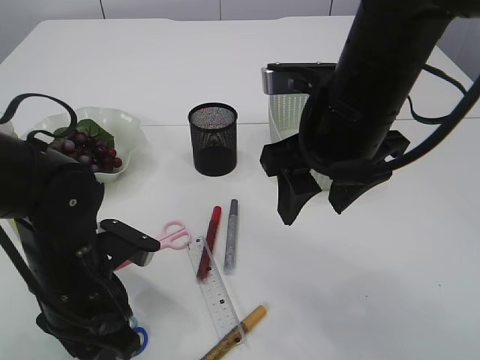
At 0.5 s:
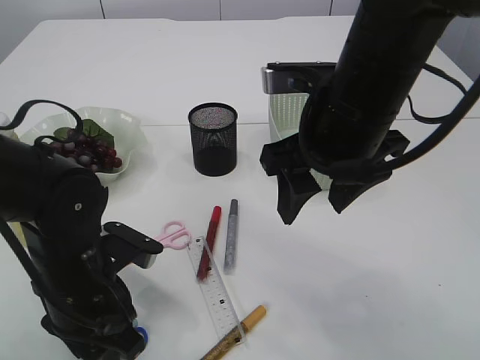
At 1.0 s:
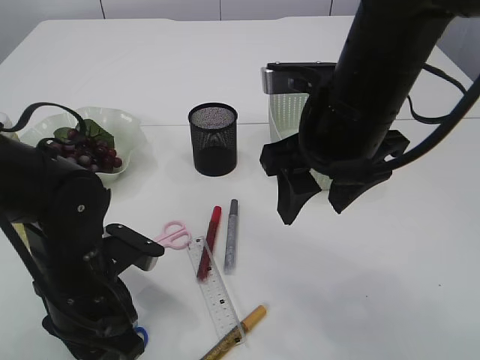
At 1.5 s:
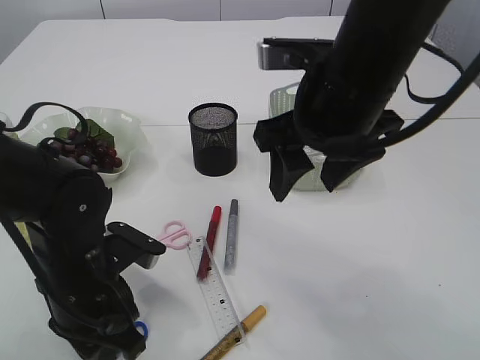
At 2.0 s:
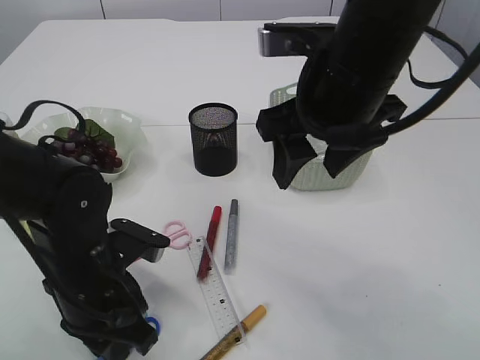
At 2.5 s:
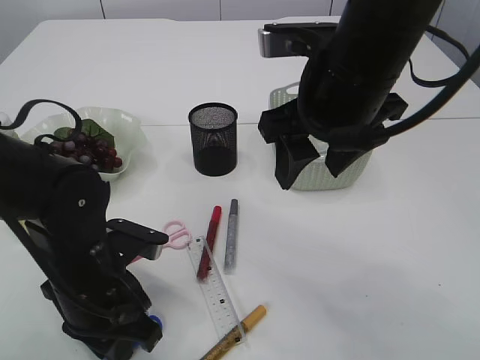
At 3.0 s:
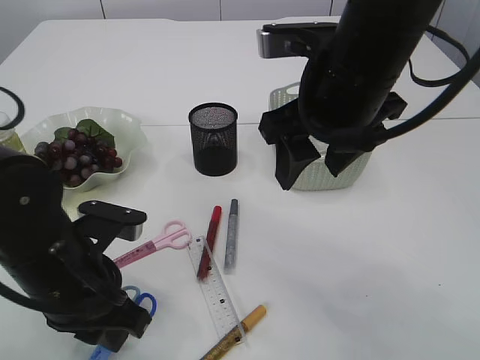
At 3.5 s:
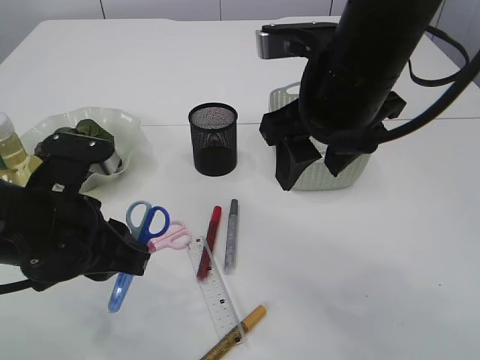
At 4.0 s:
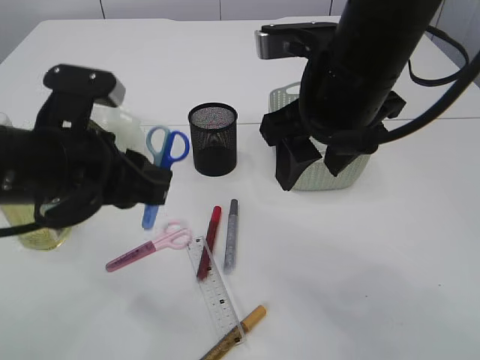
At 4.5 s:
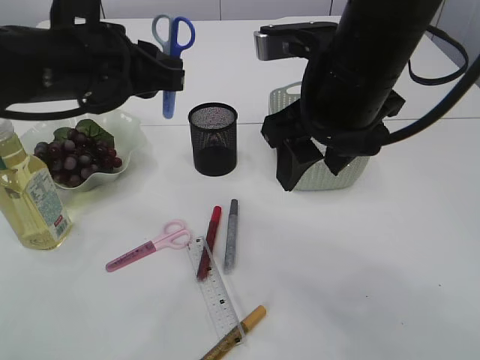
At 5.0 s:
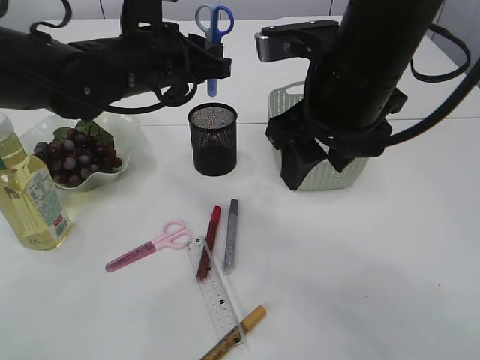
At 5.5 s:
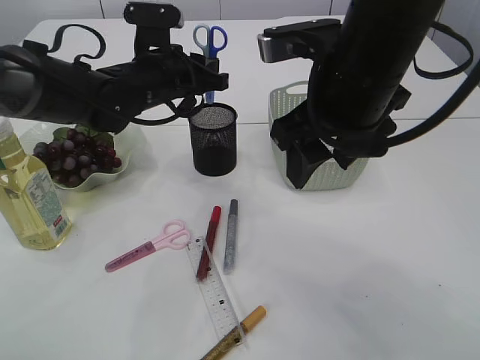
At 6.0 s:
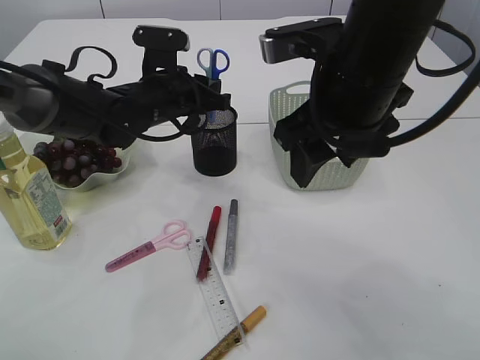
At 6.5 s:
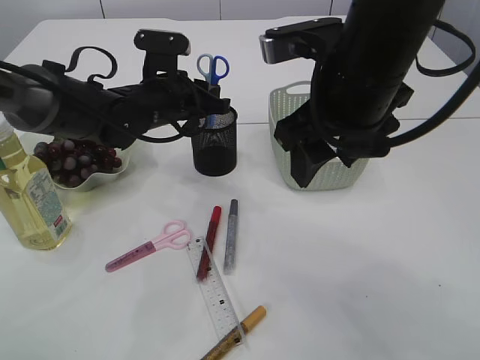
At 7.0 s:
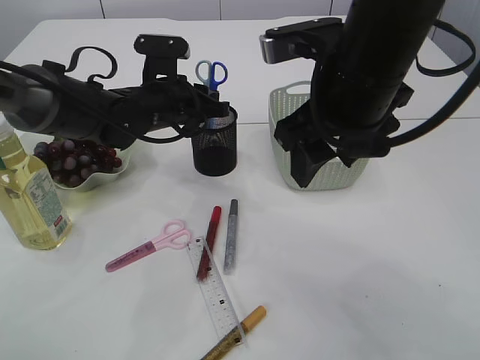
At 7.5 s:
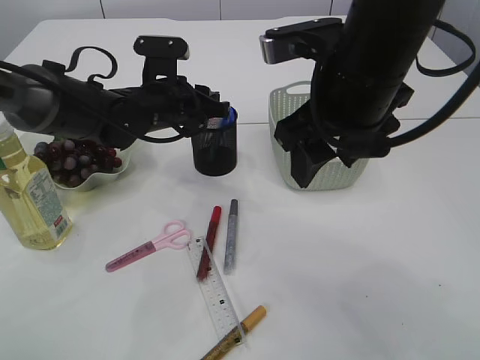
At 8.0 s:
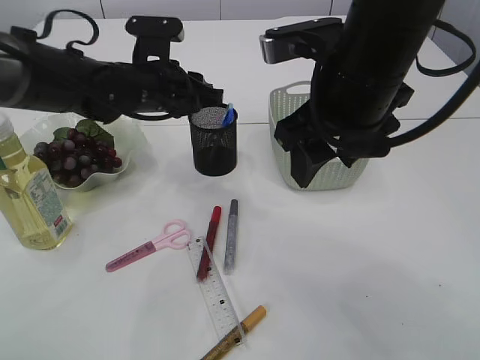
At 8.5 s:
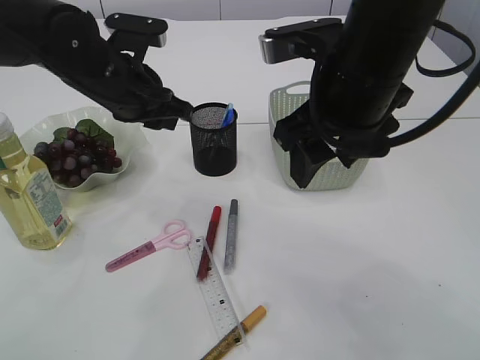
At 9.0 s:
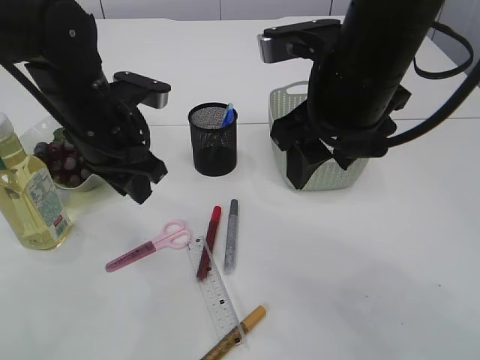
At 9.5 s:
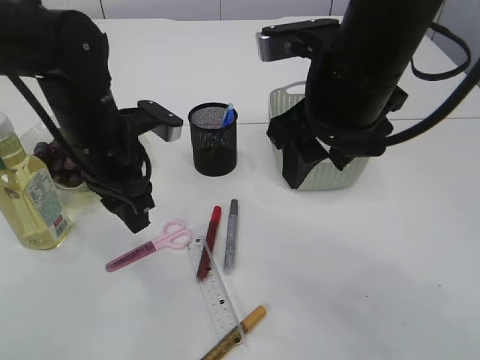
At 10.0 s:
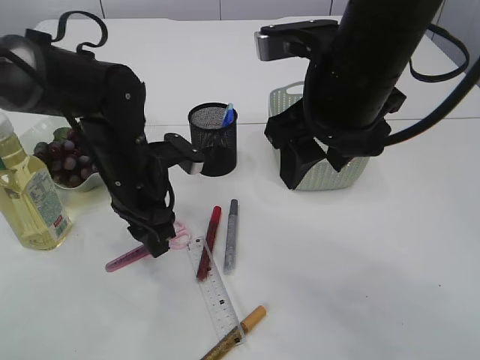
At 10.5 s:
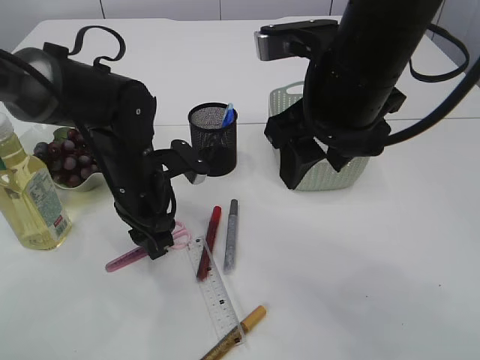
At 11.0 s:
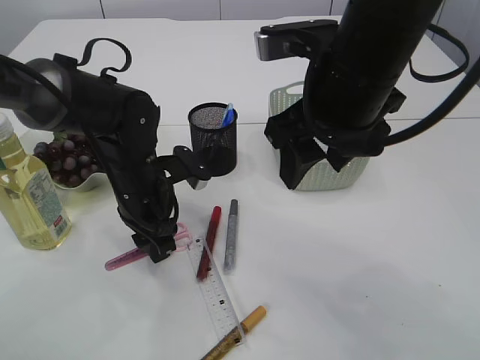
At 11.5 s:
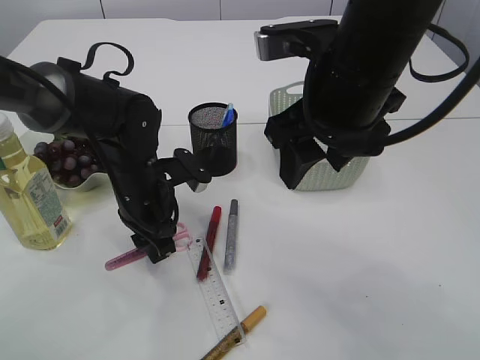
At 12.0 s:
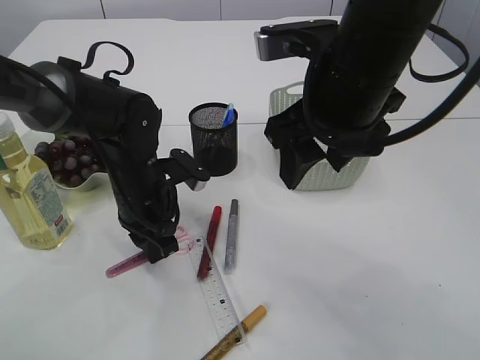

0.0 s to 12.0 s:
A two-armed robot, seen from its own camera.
Step, 0.0 to 3.5 s: pick up the blue scissors.
Step, 4.0 to 8.0 s: Place the blue scissors into the pen holder.
0.0 to 2.0 s: The left gripper closes its fingers.
2.0 to 4.0 s: The left gripper heads upward, covering roughly 10 cm.
4.0 to 6.0 s: The left gripper shifts some 20 cm forward.
6.0 to 8.0 s: The grippers stay close to where they were, moving slightly.
8.0 to 10.0 s: The left gripper moves backward and downward, approximately 10 cm.
10.0 to 12.0 s: The left gripper closes up.

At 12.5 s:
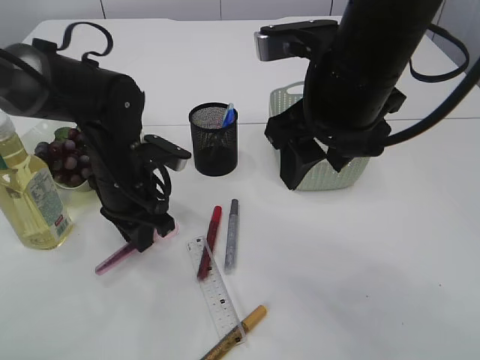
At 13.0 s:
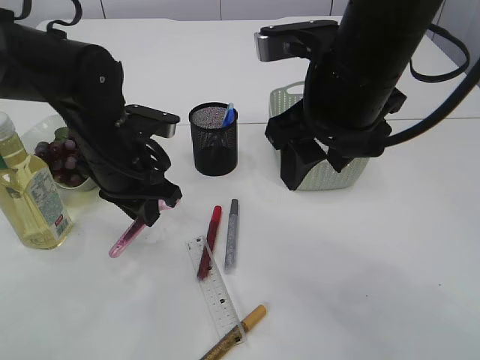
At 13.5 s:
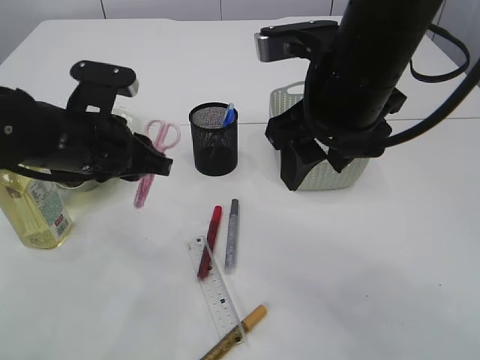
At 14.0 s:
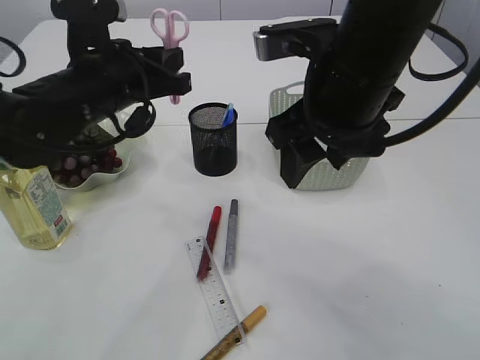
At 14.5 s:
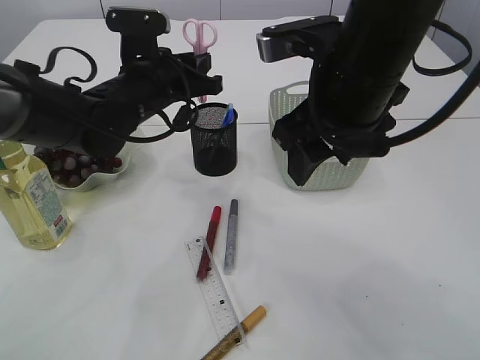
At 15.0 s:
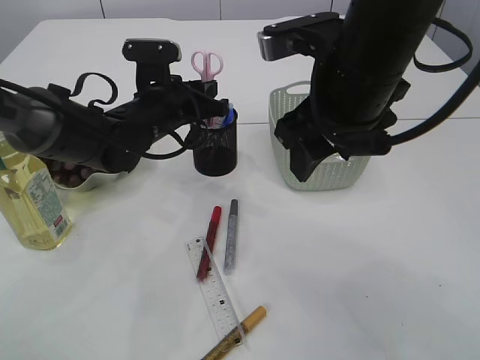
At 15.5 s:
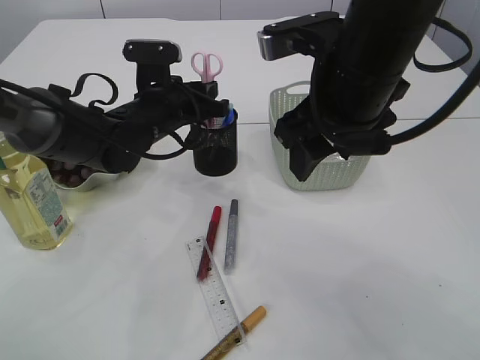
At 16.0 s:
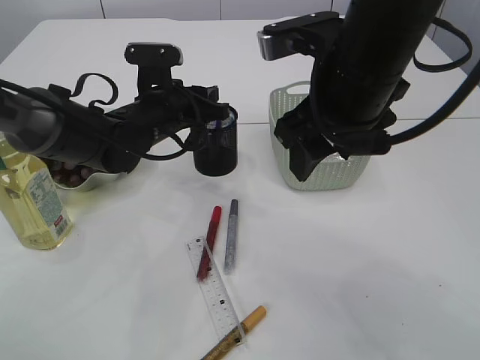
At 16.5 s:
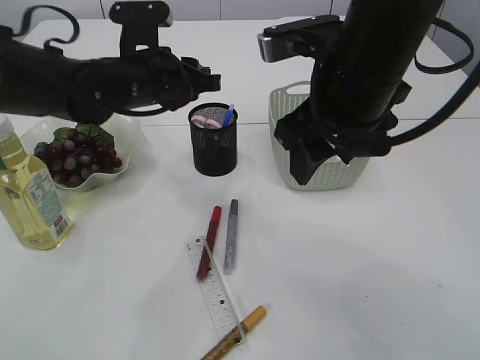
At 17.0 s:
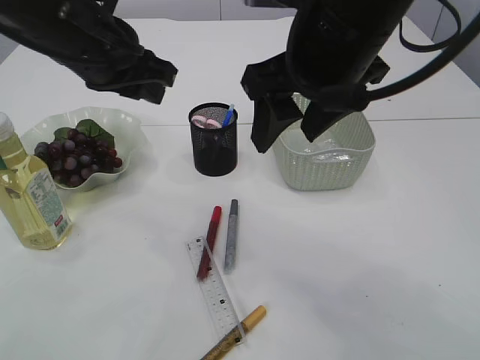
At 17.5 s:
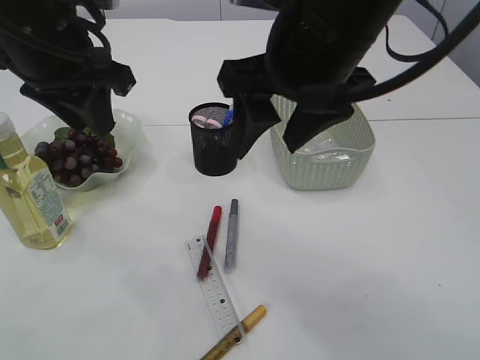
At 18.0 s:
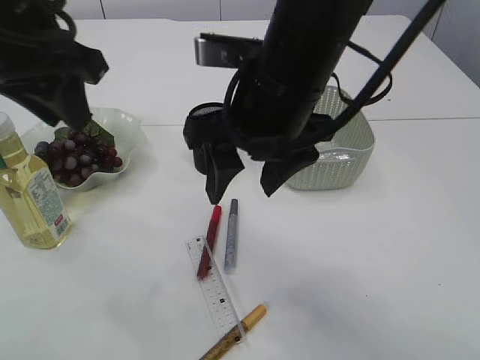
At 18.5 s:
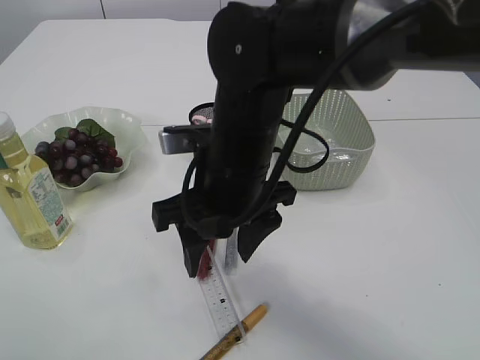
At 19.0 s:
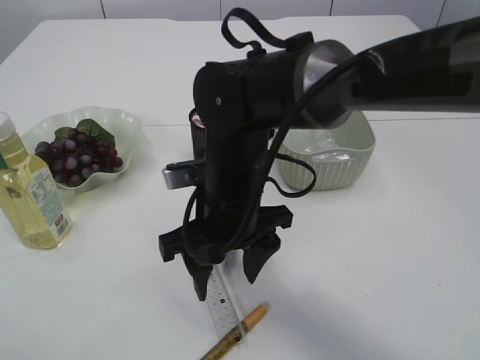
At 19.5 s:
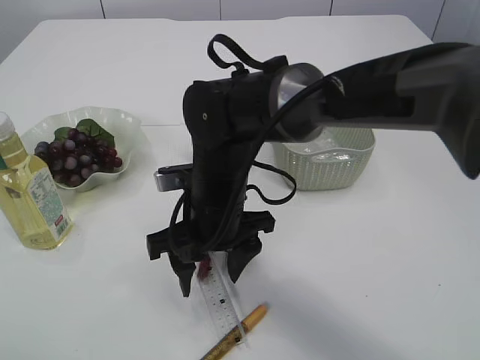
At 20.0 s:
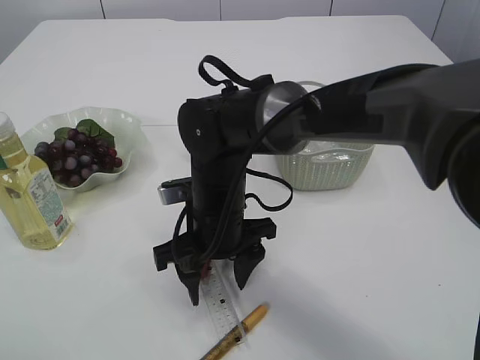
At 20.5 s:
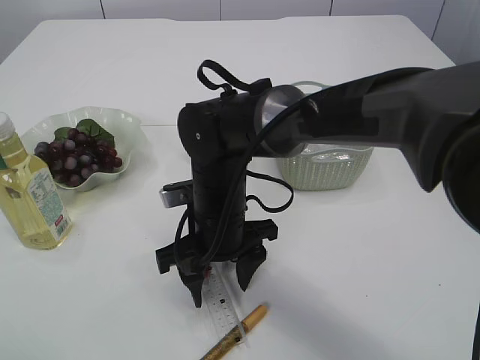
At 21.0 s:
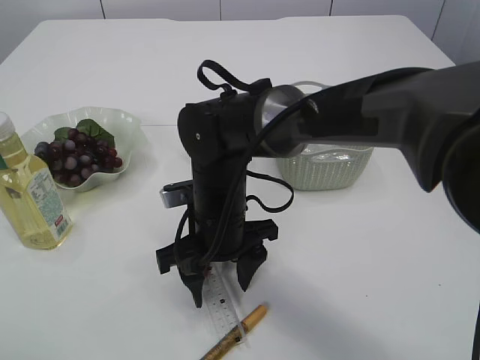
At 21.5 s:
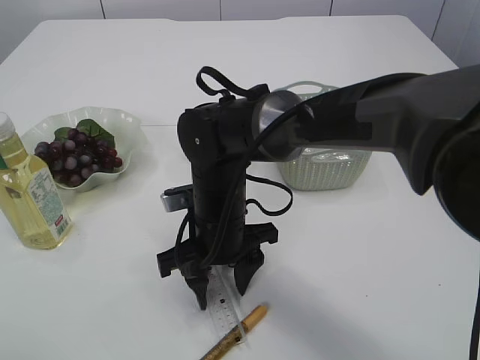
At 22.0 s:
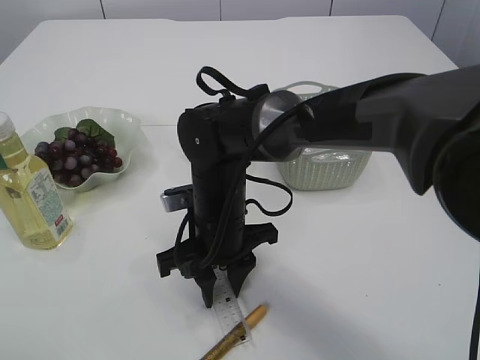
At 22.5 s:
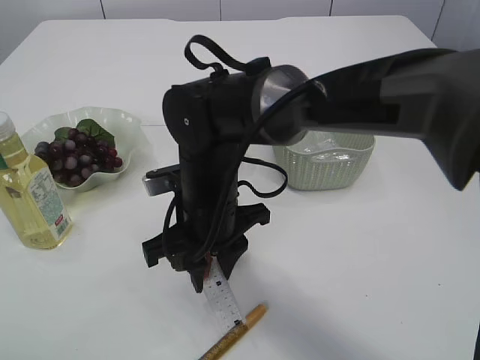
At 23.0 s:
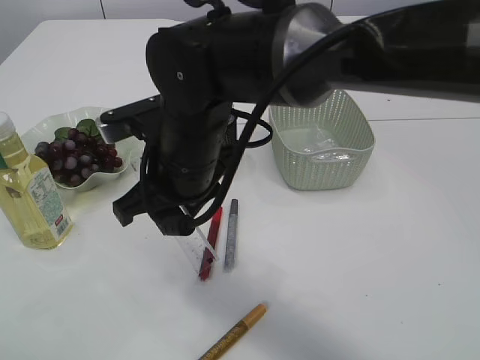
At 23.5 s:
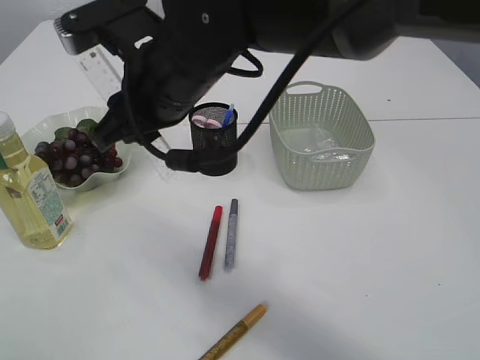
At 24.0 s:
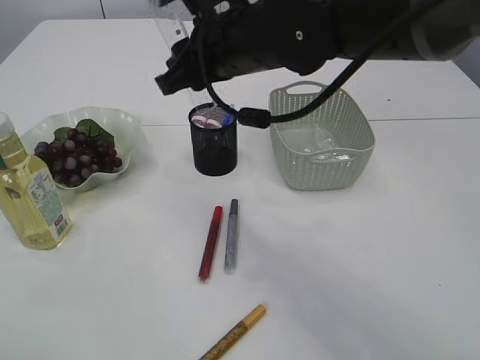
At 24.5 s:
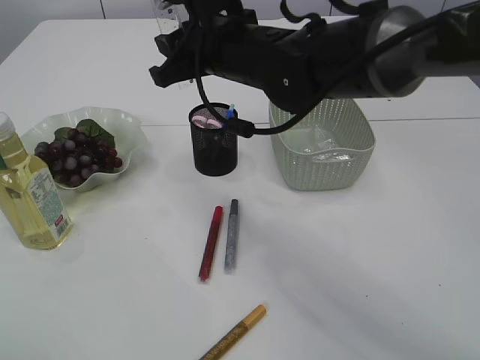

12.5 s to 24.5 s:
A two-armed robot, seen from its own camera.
Step, 14.0 to 16.5 s: Place the pink scissors into the pen holder.
Step, 17.0 to 22.5 s: pick up the ruler.
12.5 to 14.5 s: The left gripper goes about 10 cm upward and forward.
14.5 to 16.5 s: The grippers move only a little.
16.5 to 18.5 s: The left gripper moves backward, upward and to the left, approximately 30 cm; the right gripper goes some 15 cm to the left and downward.
18.5 to 20.5 s: The right gripper travels downward by roughly 10 cm; the left gripper shifts by about 5 cm.
20.5 to 22.5 s: The right gripper closes its fingers.
22.5 to 24.5 s: The right gripper goes approximately 15 cm upward and forward.

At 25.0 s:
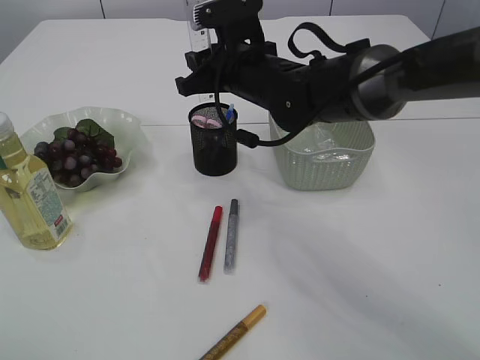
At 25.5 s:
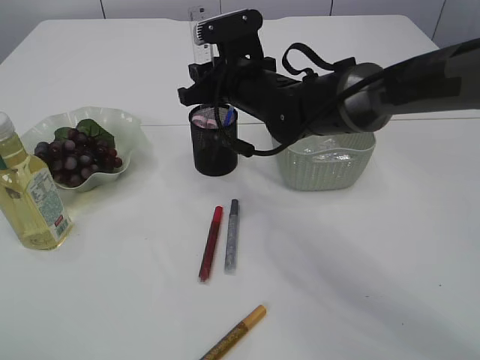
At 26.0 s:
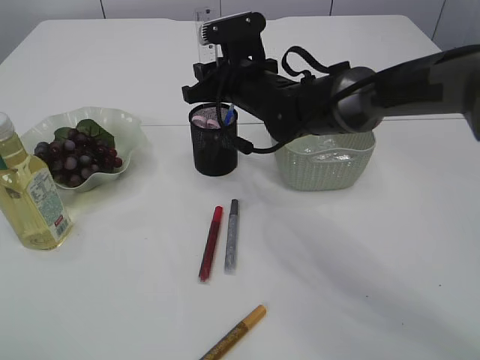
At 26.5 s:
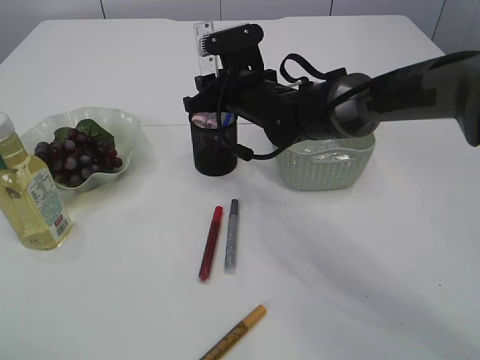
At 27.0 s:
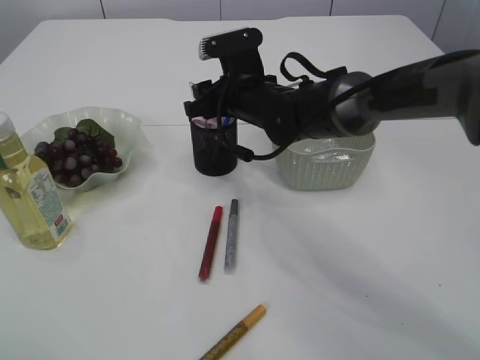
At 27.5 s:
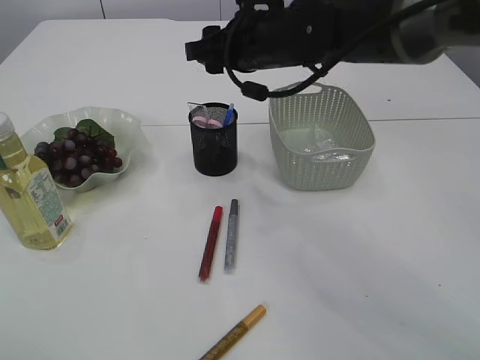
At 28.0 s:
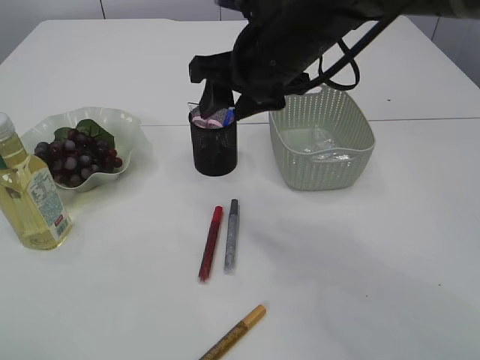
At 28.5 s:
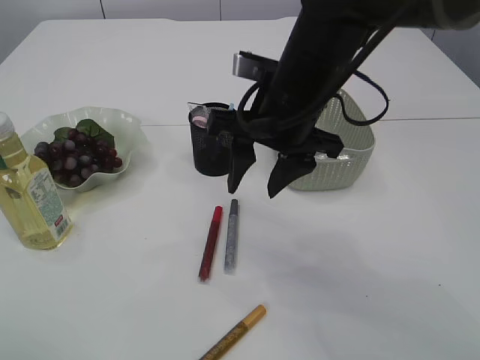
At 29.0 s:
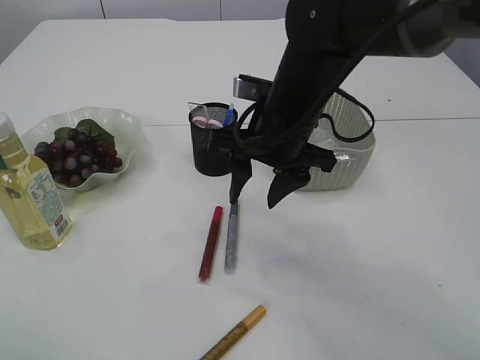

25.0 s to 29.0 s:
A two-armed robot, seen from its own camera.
Step, 25.0 to 27.5 s: Place the ruler into the pen holder.
25.0 to 27.0 s: The right gripper changes place by approximately 5 cm.
27.0 to 29.0 s: The right gripper goes roughly 10 cm backward.
